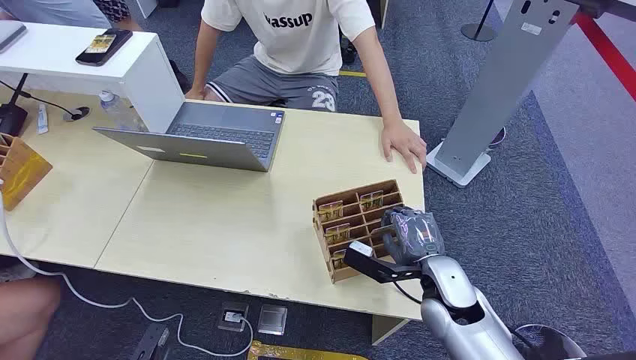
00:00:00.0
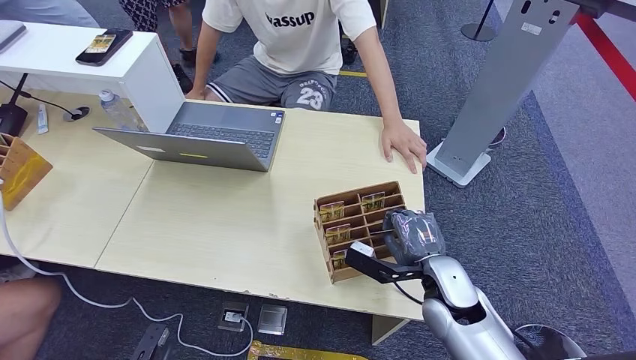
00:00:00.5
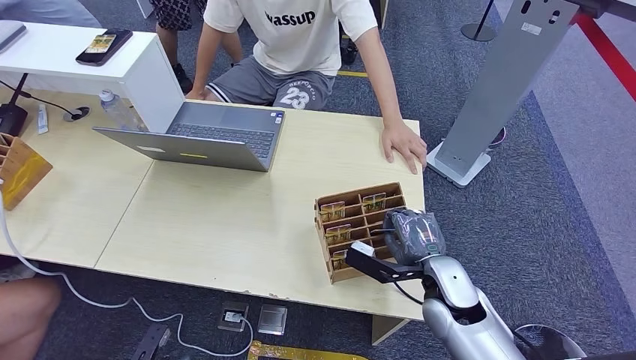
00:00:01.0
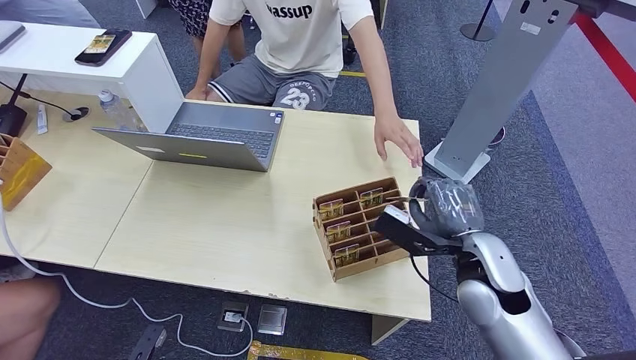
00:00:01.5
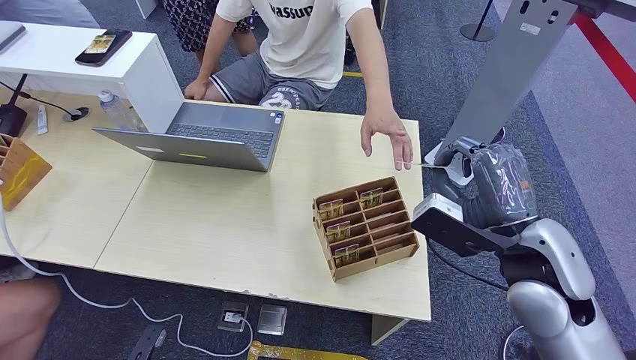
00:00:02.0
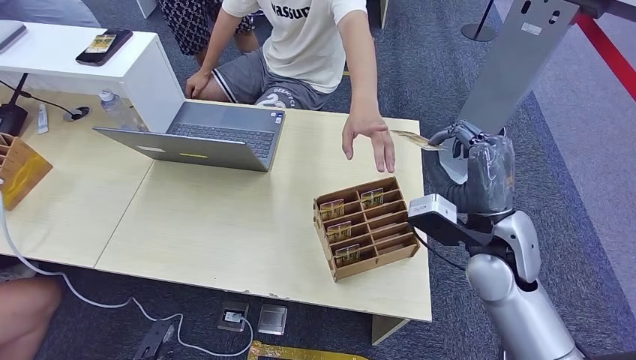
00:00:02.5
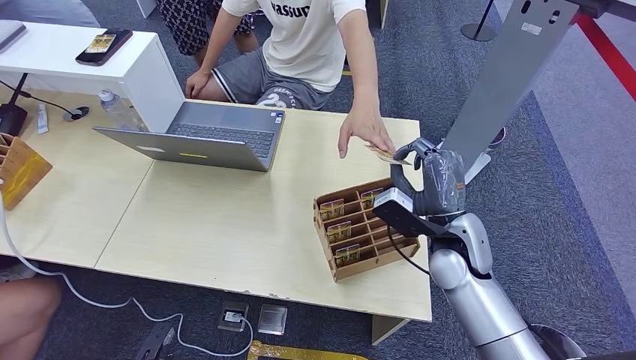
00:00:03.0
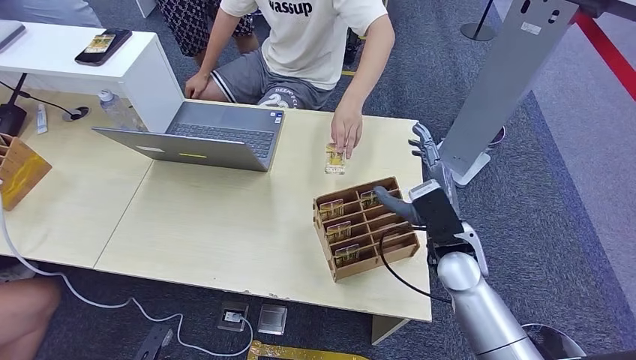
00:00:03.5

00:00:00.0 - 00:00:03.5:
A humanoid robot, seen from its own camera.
Step, 00:00:00.0 - 00:00:01.5: Pick up the key card from the card box.
Step, 00:00:02.0 - 00:00:03.5: Hand the key card to the target.
00:00:02.0 - 00:00:03.5: The right hand is displaced downward, forward and to the left by roughly 15 cm.
